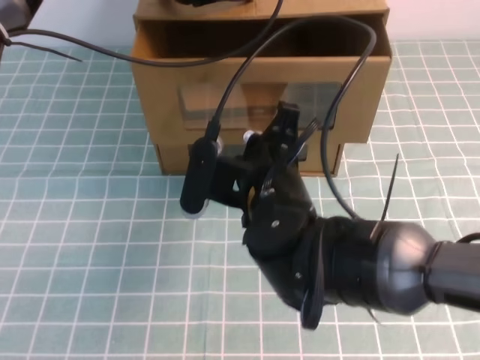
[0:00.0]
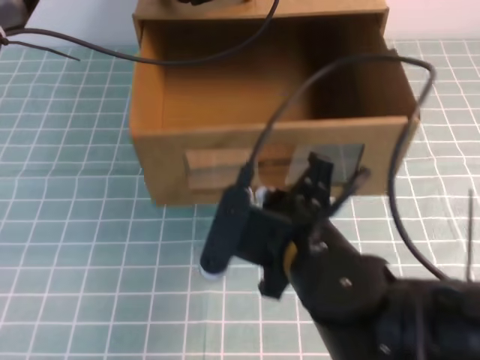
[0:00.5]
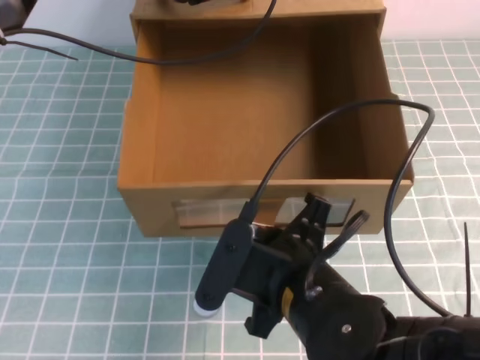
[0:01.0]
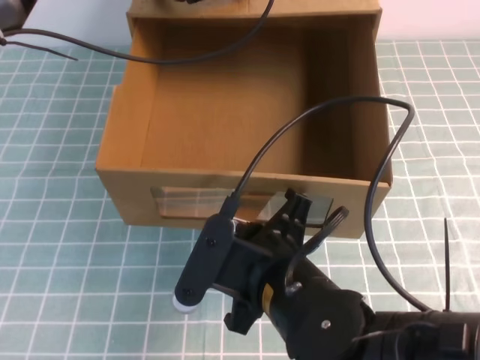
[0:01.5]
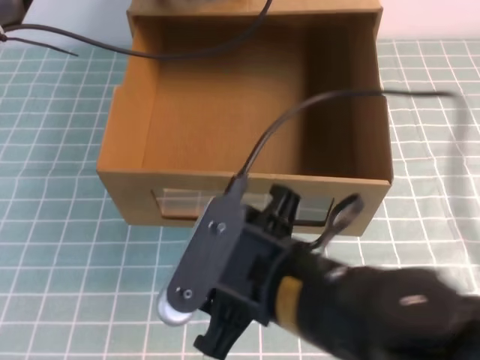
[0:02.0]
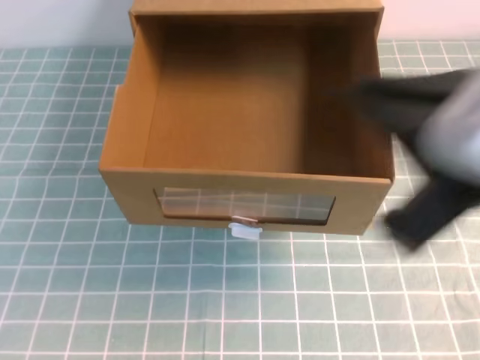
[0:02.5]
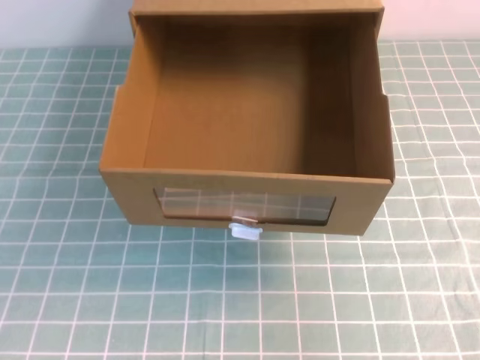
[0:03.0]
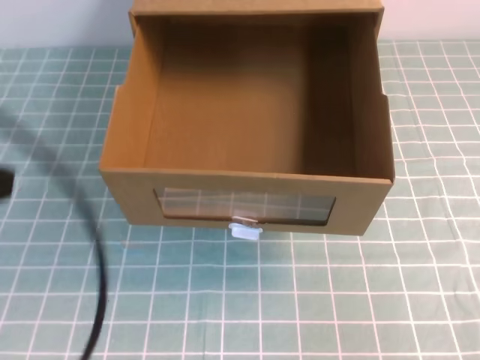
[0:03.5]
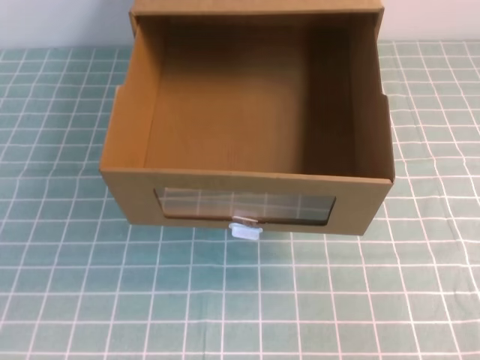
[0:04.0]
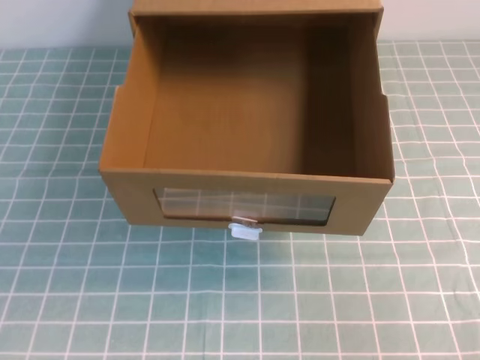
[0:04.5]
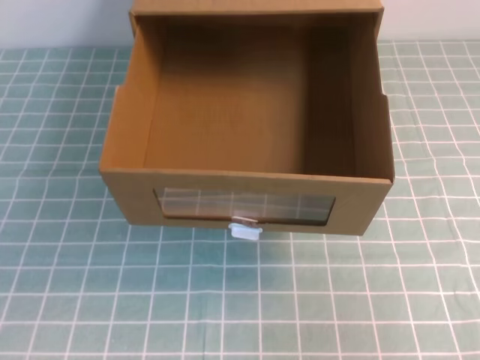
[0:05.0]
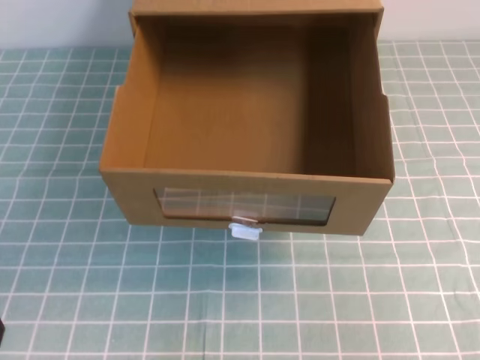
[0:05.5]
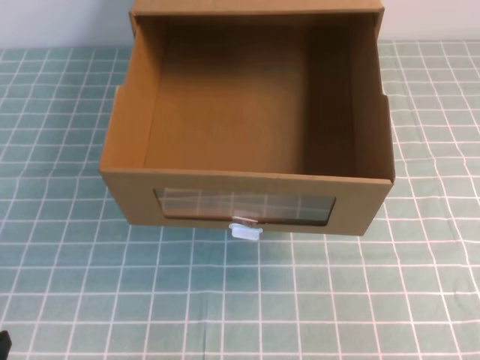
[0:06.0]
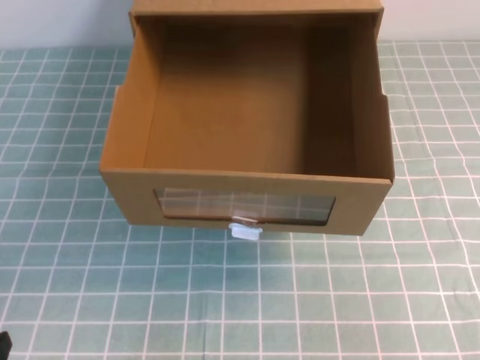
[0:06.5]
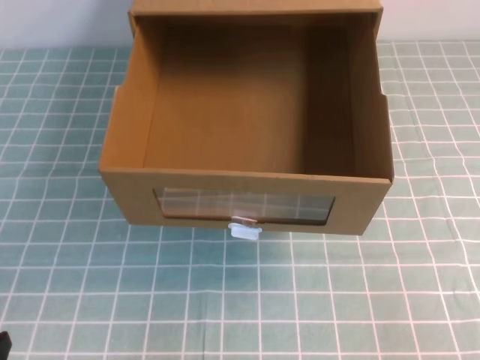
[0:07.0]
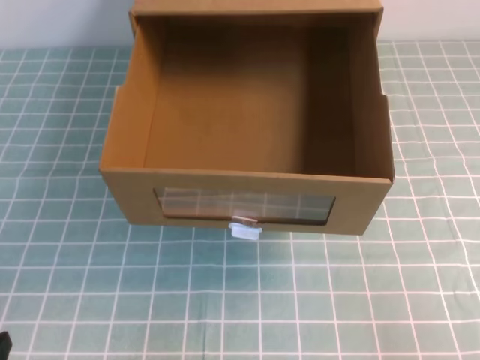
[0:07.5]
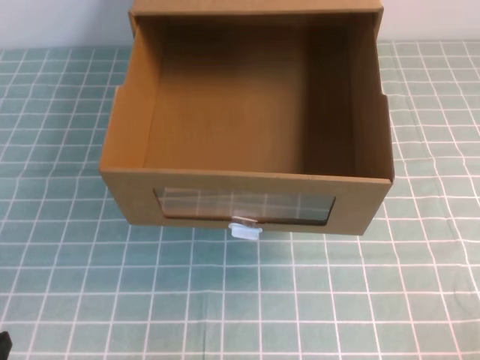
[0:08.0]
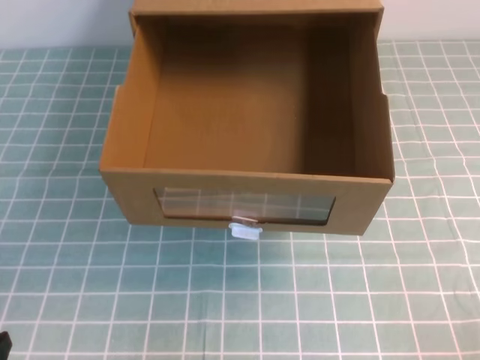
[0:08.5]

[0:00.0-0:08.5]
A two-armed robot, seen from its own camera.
Task of the whole recording: open the shoebox on the cyan tablecloth.
Step, 0:00.0 to 0:08.5: Open the shoe box.
0:00.0 to 0:02.0: The right gripper shifts about 10 cm backward, and opens up.
0:02.0 to 0:04.0: The right gripper goes roughly 30 cm to the right, and closes up; the left gripper travels backward by approximately 40 cm.

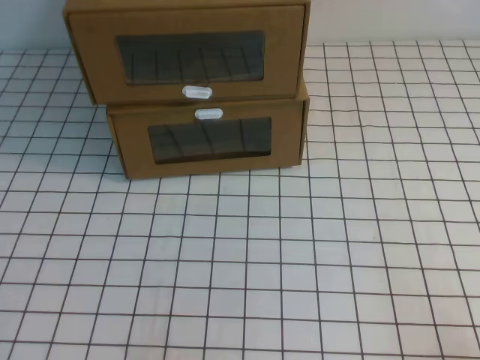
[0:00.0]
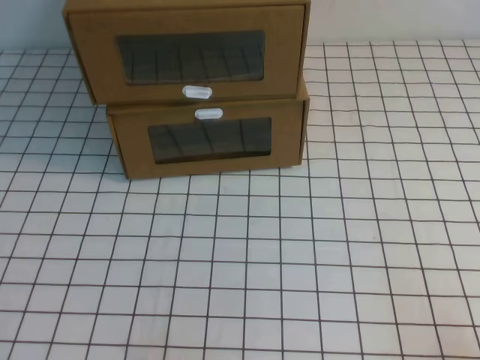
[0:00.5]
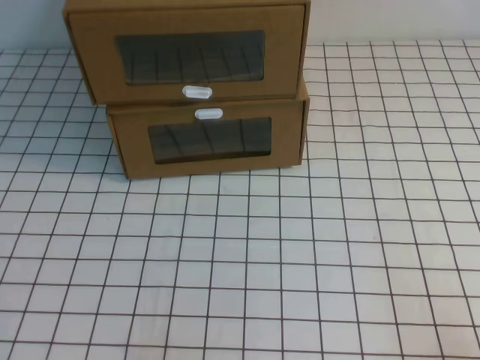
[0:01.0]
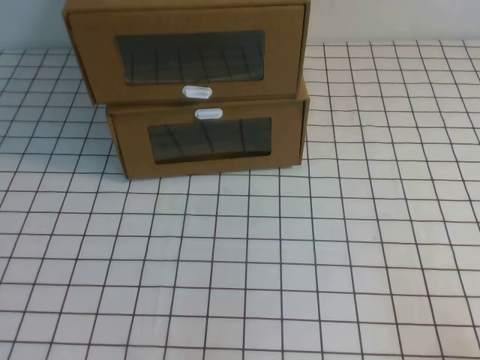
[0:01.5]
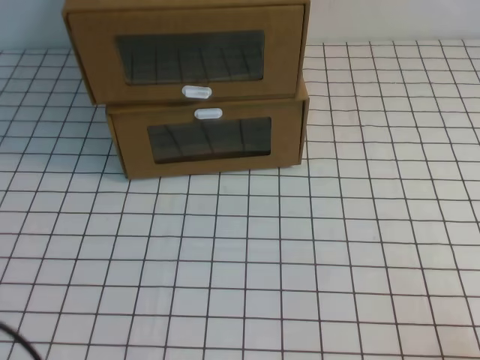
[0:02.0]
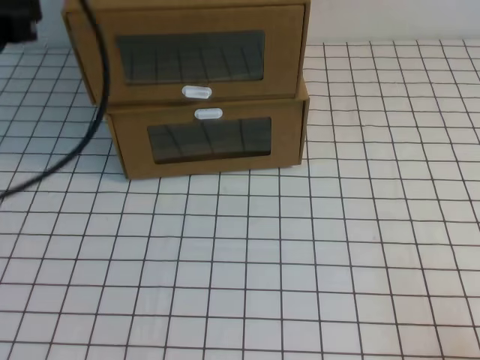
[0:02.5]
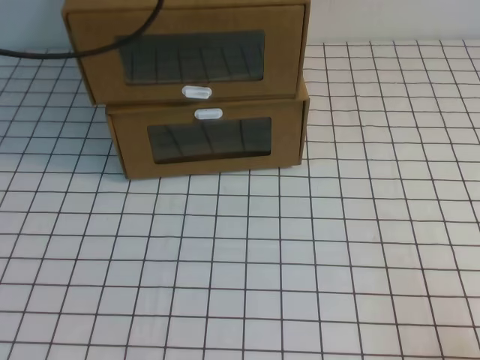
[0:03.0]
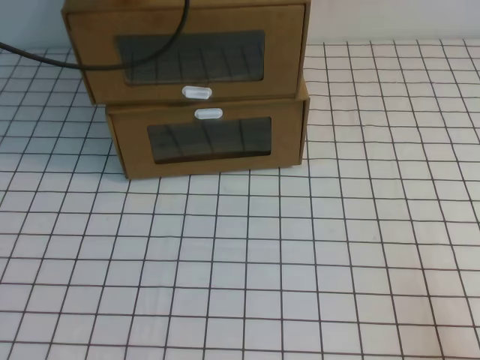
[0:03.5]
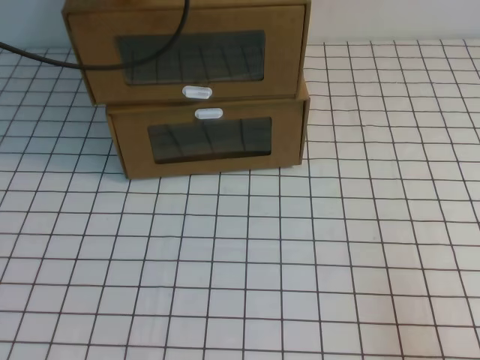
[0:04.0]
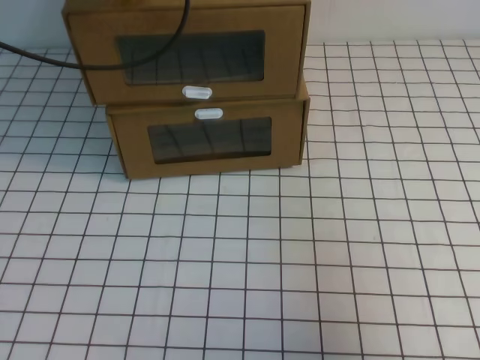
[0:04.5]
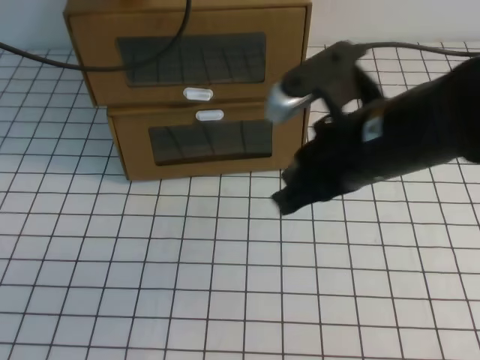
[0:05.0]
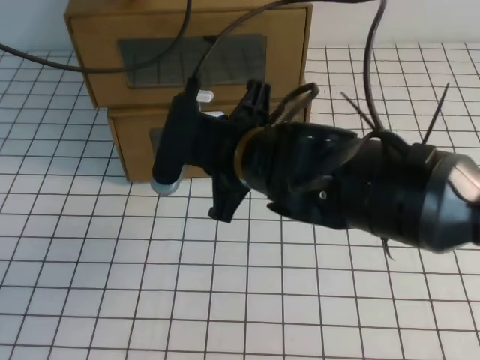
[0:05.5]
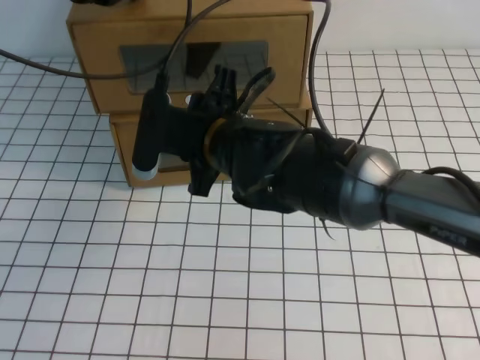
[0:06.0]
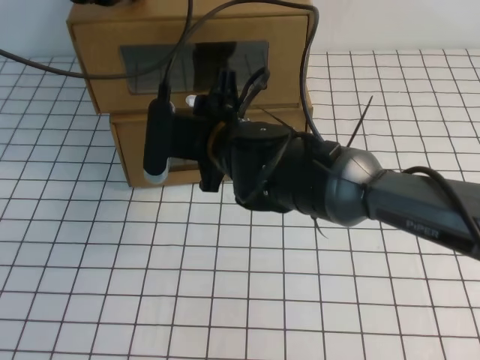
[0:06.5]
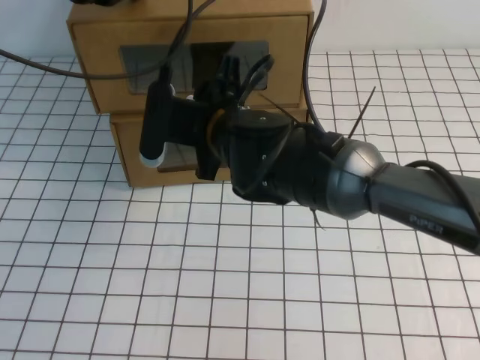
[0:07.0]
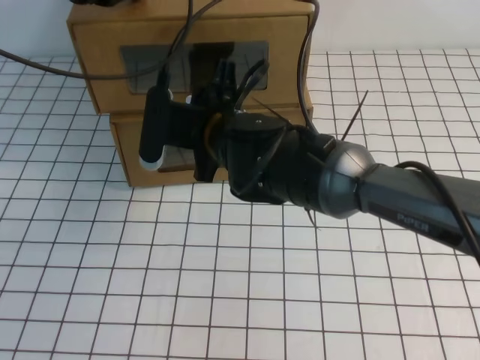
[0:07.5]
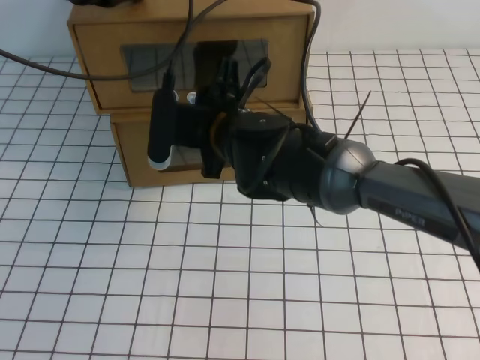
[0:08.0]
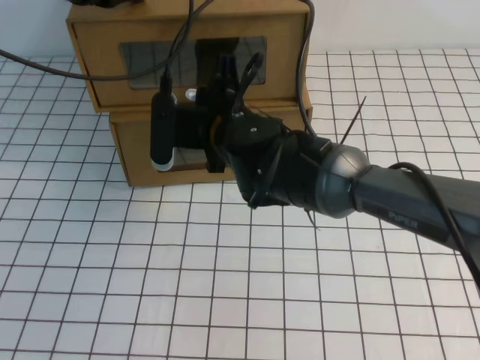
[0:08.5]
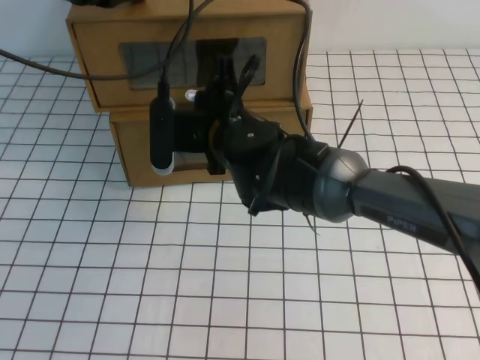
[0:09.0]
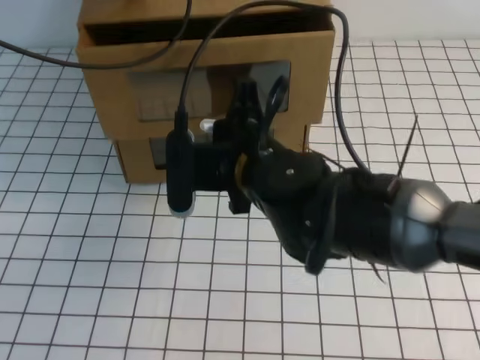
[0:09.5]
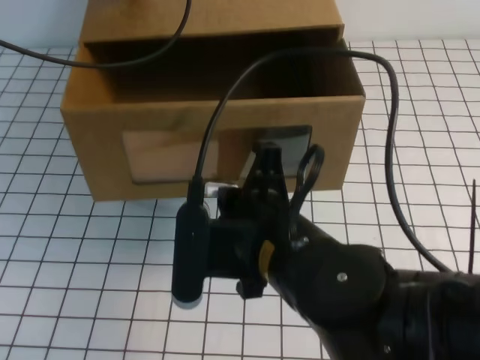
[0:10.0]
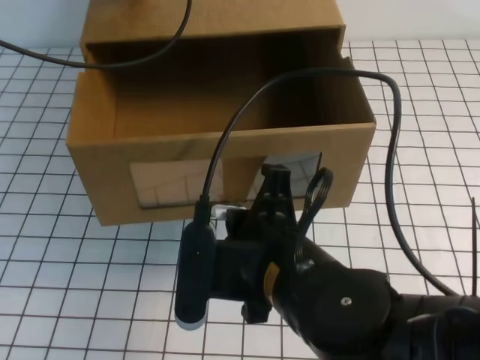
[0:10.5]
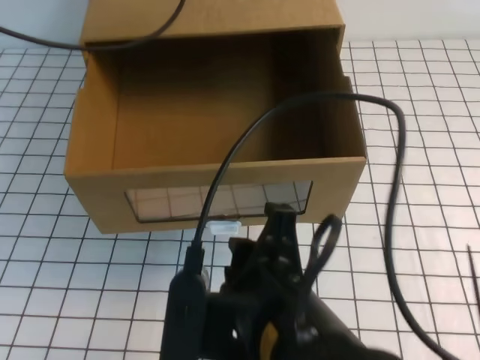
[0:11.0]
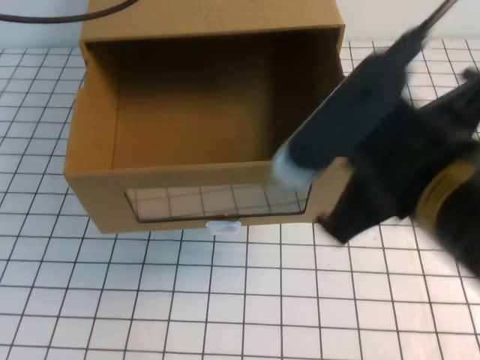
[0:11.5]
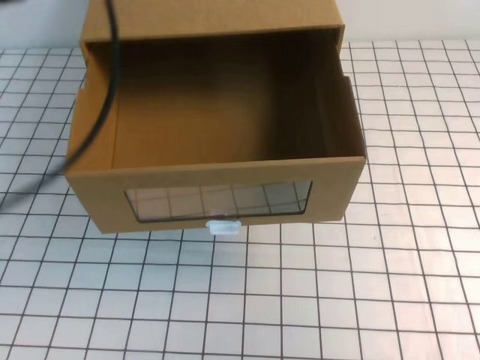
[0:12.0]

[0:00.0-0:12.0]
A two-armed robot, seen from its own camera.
Task of the whole recording: open the shoebox on the white tablecloth.
0:02.0 to 0:04.0: The left gripper moves forward, roughly 35 cm.
0:04.0 to 0:06.0: The right gripper goes some 40 cm to the left and forward, and opens.
0:06.0 to 0:08.0: The right gripper shifts by roughly 5 cm.
0:08.0 to 0:10.0: The right gripper shifts about 15 cm backward, and closes up.
0:10.0 to 0:12.0: The right gripper travels to the right and upward by roughly 25 cm, and opens, then closes once more, while the left gripper is displaced backward by about 20 cm.

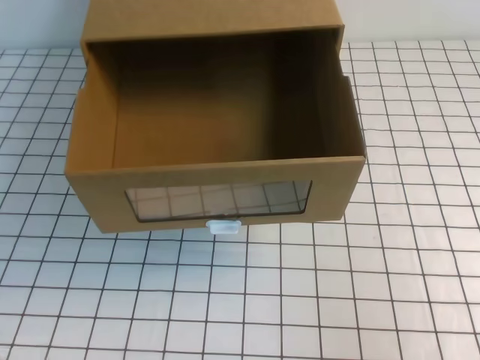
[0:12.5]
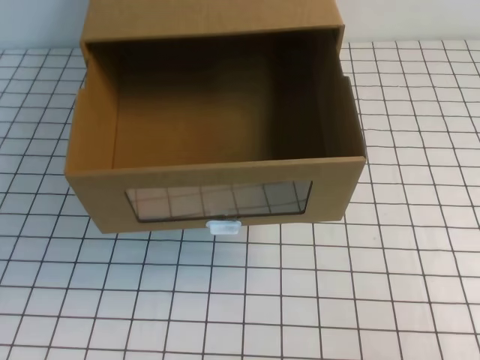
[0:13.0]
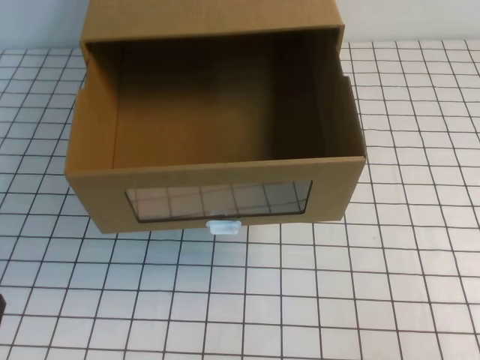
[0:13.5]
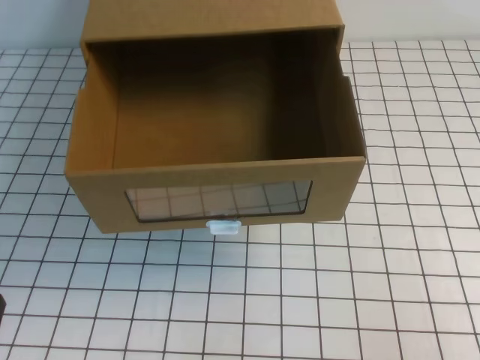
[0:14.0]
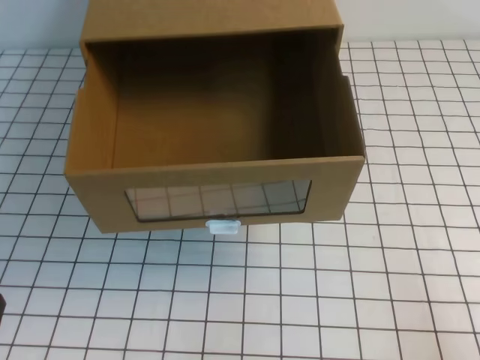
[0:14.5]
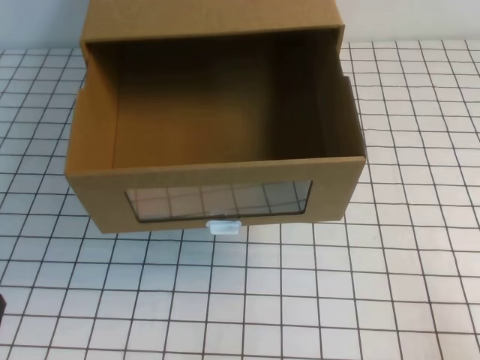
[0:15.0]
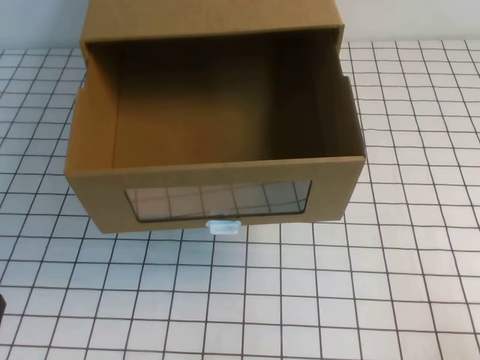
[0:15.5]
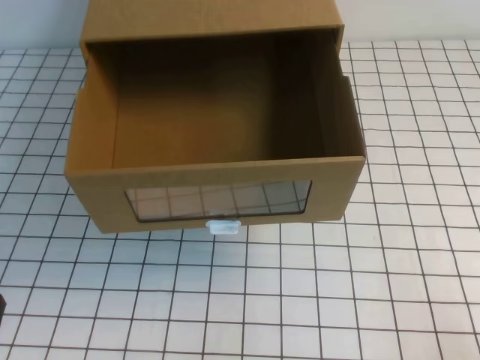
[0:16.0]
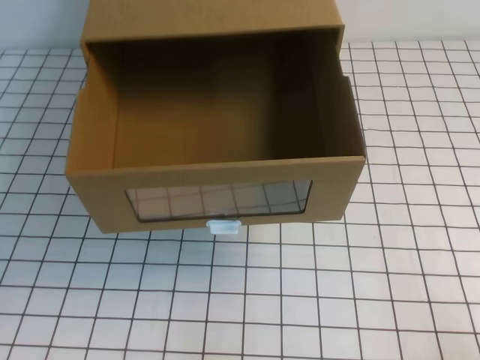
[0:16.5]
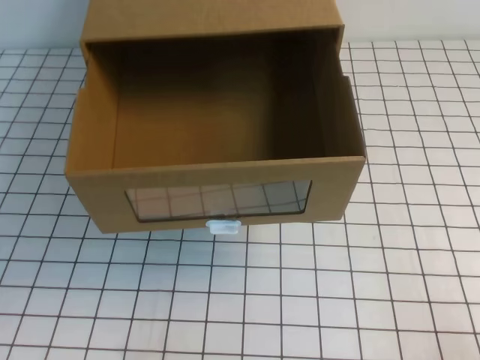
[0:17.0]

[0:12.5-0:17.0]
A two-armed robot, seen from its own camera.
Task of the whole recording: open the shoebox on the white tablecloth.
0:12.5 to 0:14.5: The right gripper is displaced downward by roughly 10 cm.
